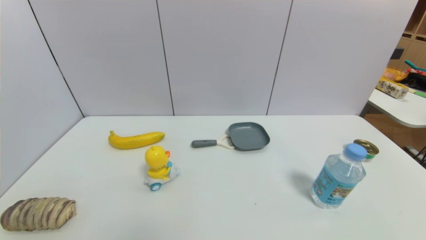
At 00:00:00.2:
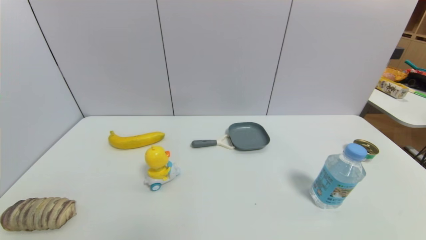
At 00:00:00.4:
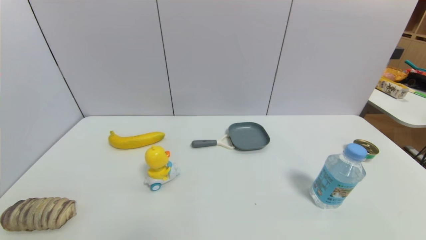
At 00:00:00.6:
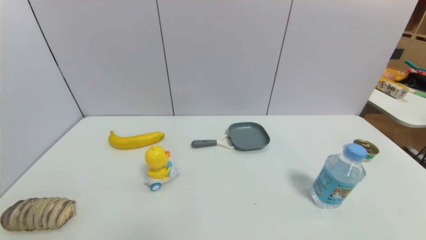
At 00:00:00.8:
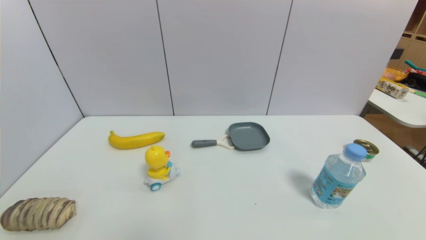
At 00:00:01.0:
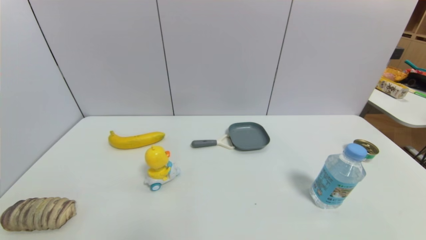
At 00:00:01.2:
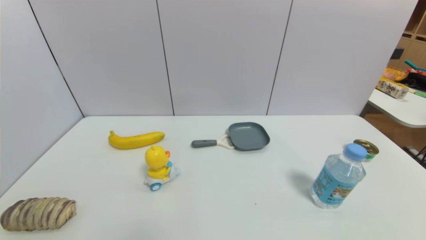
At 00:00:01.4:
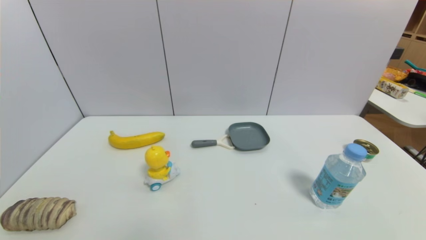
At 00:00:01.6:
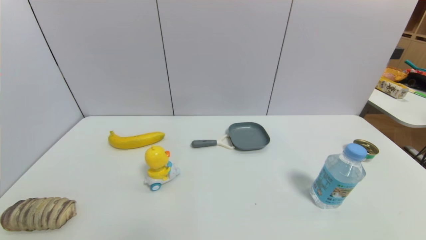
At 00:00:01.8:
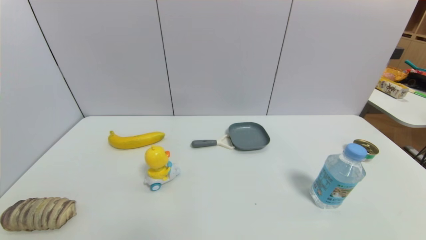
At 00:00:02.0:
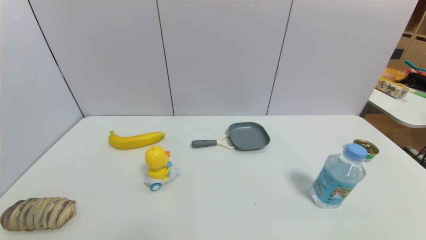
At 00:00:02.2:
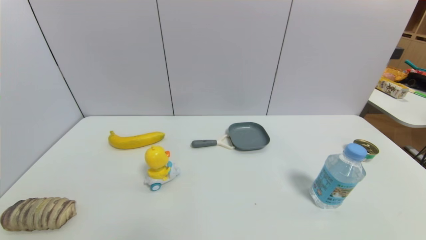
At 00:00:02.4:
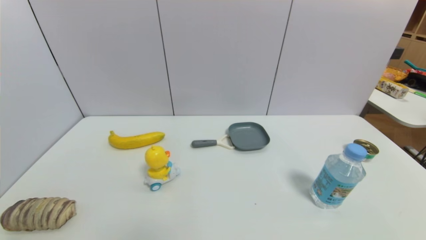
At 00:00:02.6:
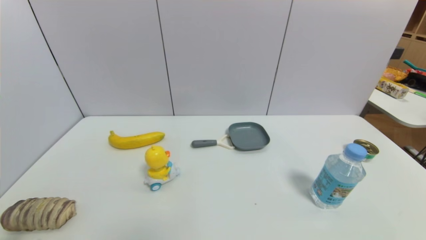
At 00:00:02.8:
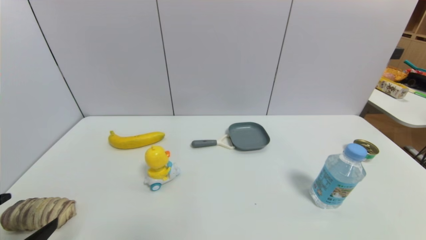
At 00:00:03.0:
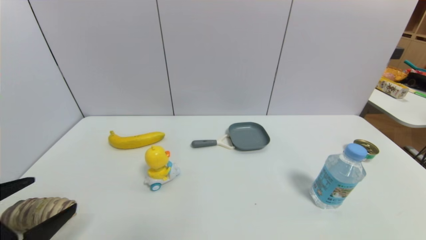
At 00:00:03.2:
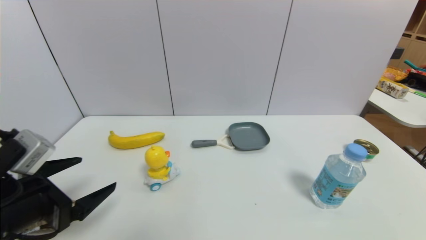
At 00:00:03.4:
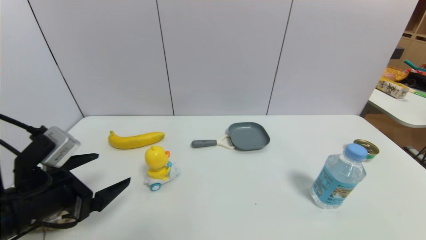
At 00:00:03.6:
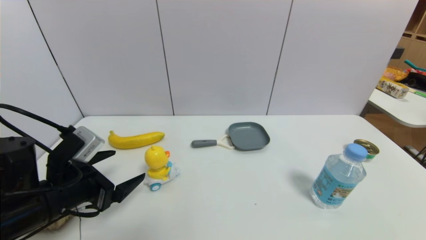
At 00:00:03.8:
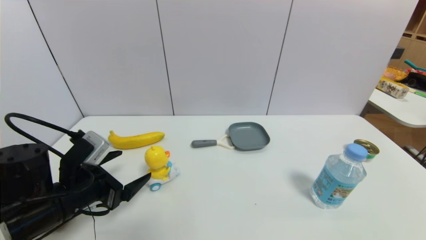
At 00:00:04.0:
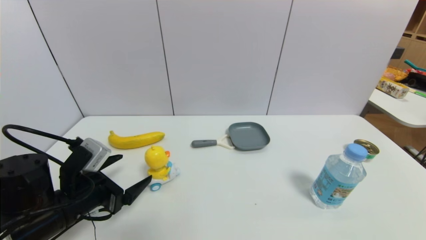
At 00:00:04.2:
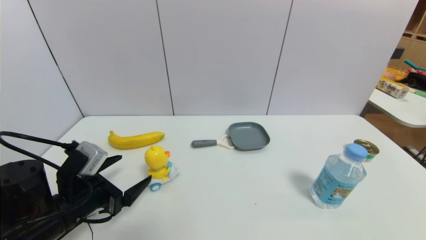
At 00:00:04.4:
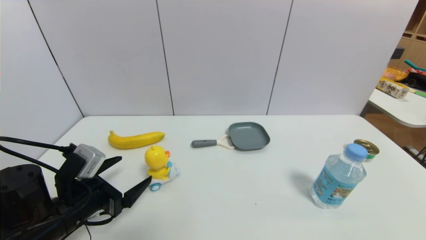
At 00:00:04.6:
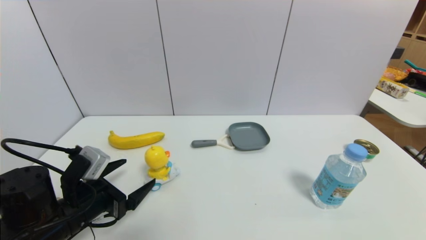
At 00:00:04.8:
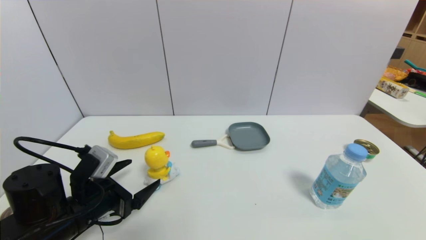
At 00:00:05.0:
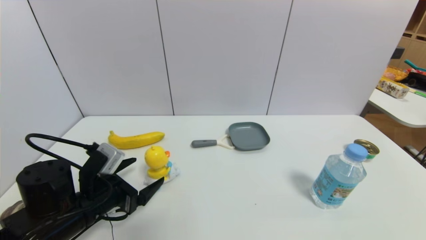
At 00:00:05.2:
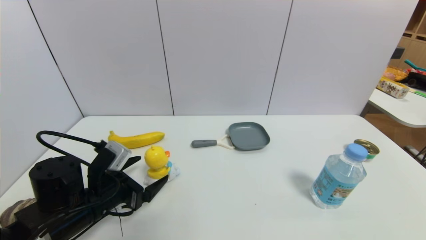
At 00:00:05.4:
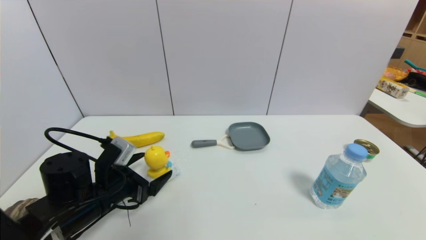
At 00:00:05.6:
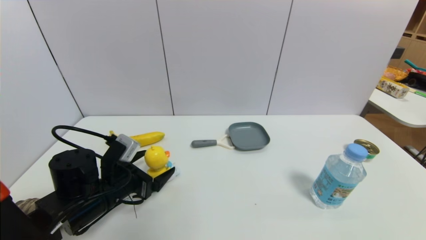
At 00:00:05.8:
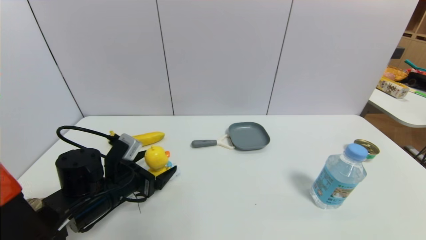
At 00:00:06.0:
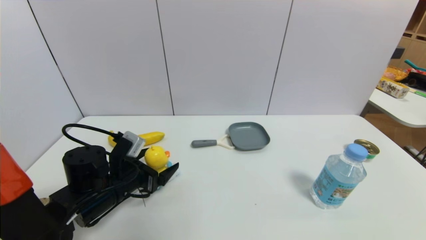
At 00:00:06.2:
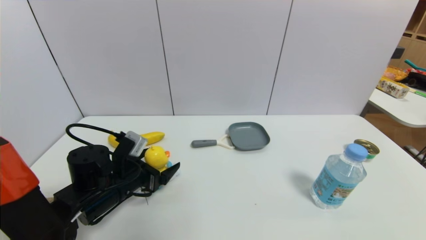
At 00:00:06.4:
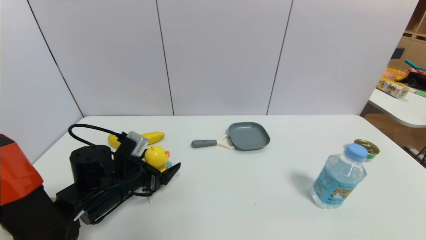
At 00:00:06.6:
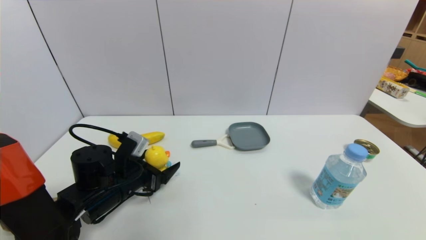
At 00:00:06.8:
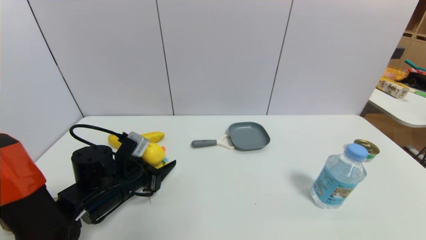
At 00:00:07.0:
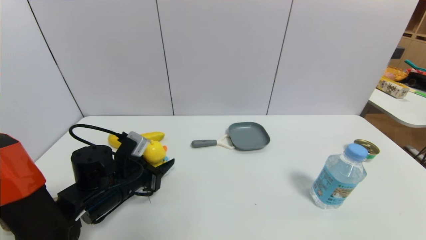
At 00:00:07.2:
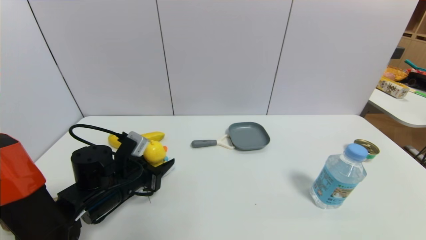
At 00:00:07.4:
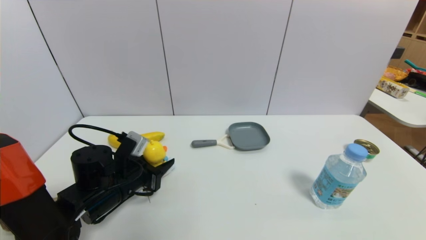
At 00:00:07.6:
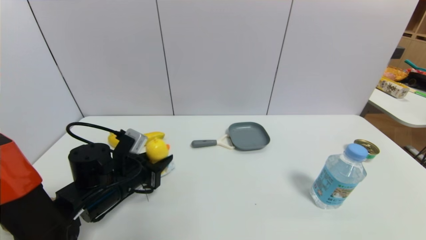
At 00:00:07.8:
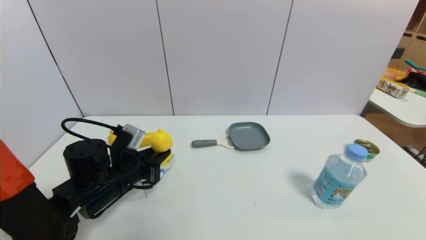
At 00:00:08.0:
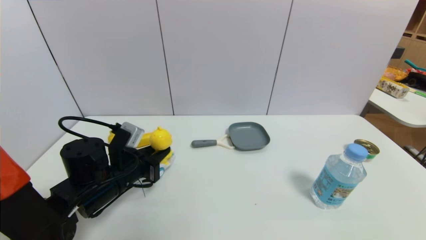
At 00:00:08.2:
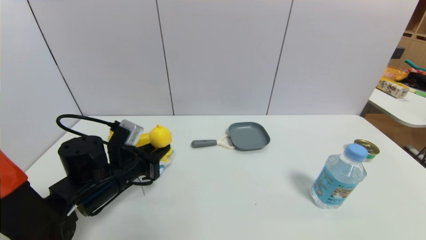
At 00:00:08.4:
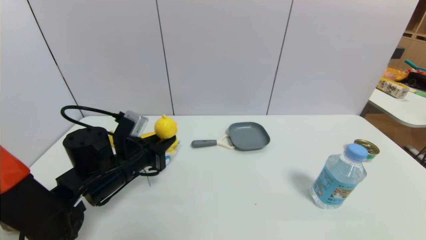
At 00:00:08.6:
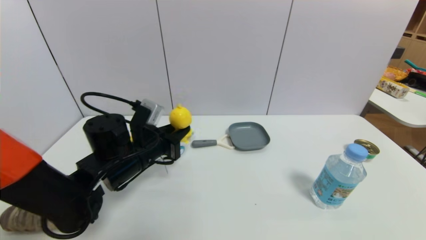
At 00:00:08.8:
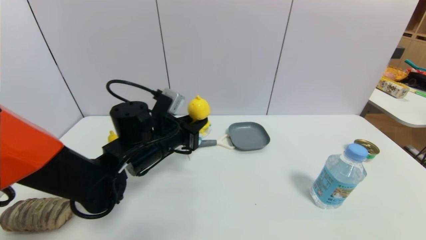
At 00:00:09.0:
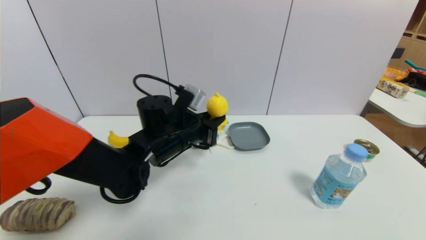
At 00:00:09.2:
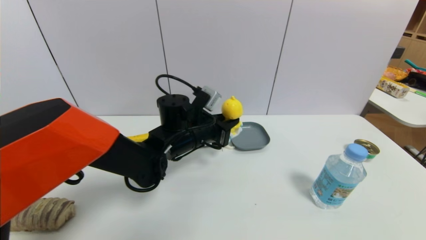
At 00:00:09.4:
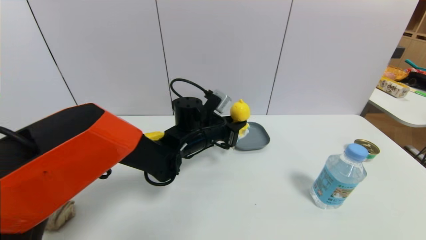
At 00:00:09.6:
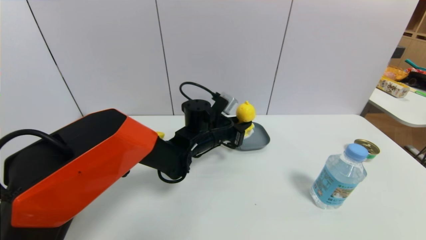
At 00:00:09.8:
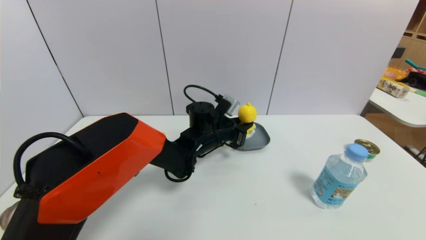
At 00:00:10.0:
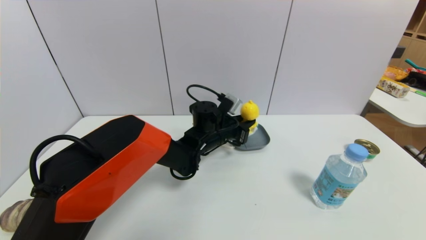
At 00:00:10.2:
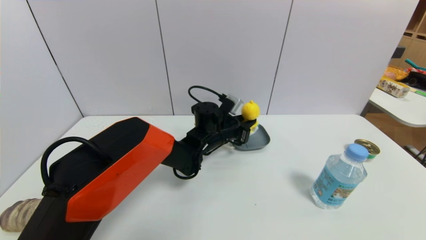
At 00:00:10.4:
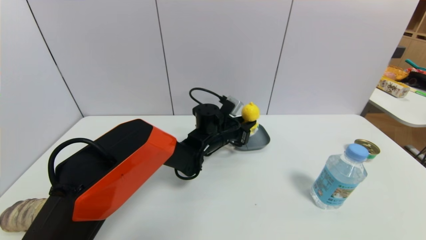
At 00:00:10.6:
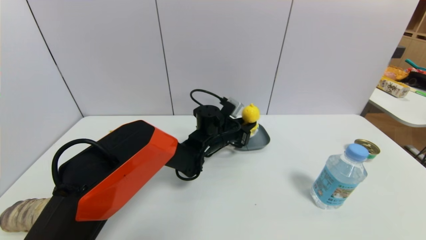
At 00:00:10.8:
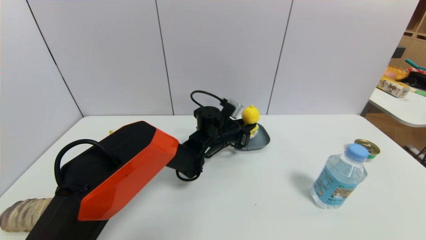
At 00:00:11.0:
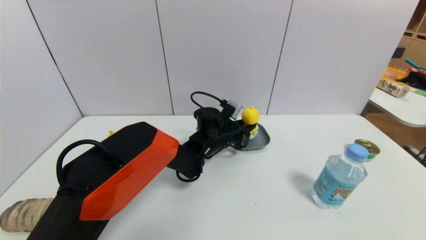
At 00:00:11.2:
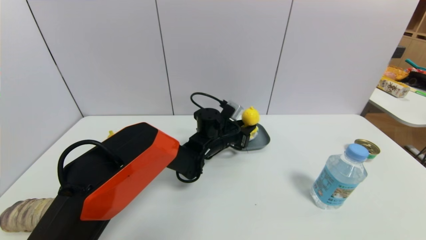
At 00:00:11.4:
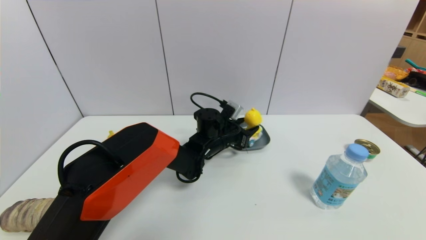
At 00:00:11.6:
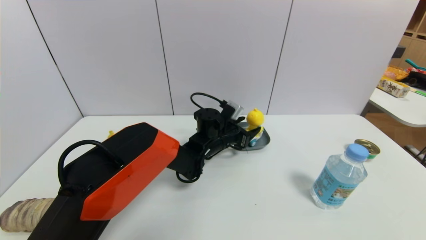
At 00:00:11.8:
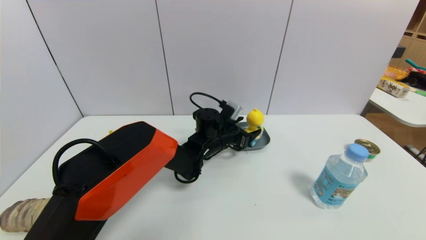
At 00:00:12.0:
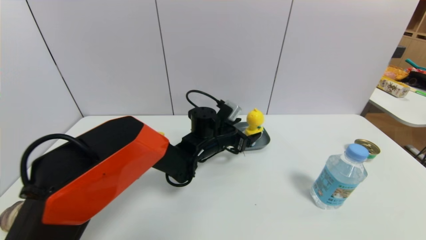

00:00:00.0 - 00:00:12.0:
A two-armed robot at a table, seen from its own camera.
Task of the whole recording: use a gripper to pick the target object and place on the dish.
Step, 00:00:00.0 - 00:00:07.0: Grasp the duck toy with the left gripper.
00:00:01.6 - 00:00:03.0: The left gripper is displaced upward and forward by roughly 15 cm.
00:00:03.0 - 00:00:04.4: The left gripper heads forward and downward, covering roughly 10 cm.
00:00:04.4 - 00:00:06.0: The left gripper travels forward by approximately 5 cm.
00:00:06.0 - 00:00:07.6: The left gripper closes its fingers.
00:00:07.6 - 00:00:09.0: The left gripper is displaced to the right, upward and forward by roughly 15 cm.
00:00:09.0 - 00:00:10.4: The left gripper moves to the right, forward and downward, roughly 15 cm.
00:00:10.4 - 00:00:12.0: The left gripper opens up.

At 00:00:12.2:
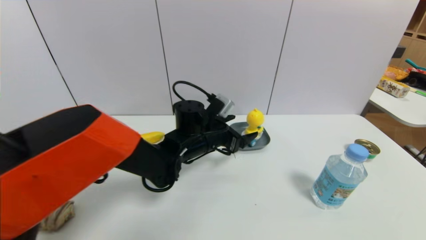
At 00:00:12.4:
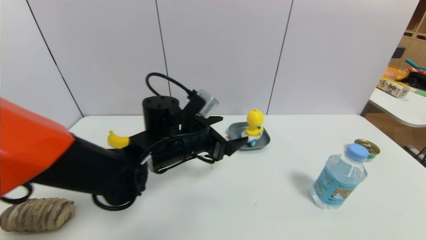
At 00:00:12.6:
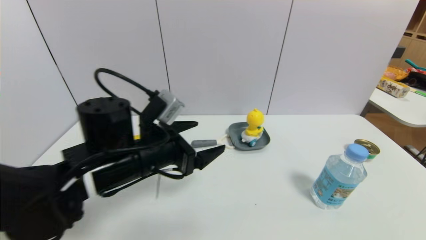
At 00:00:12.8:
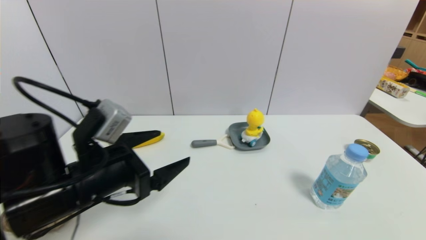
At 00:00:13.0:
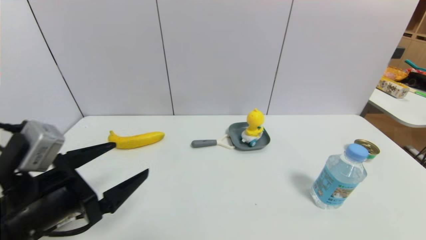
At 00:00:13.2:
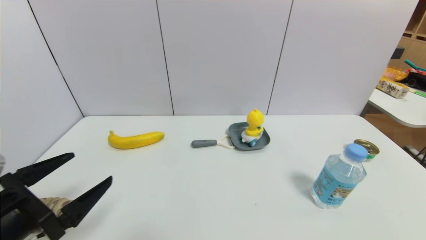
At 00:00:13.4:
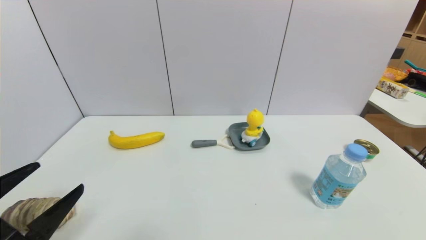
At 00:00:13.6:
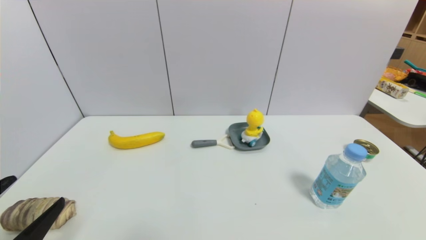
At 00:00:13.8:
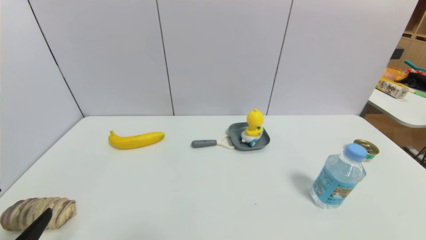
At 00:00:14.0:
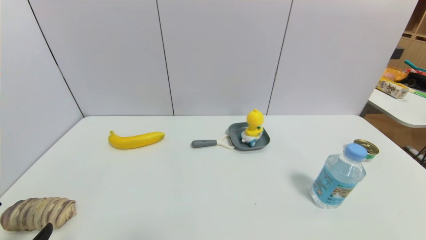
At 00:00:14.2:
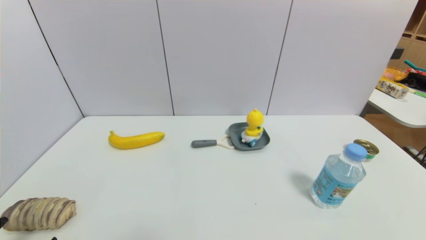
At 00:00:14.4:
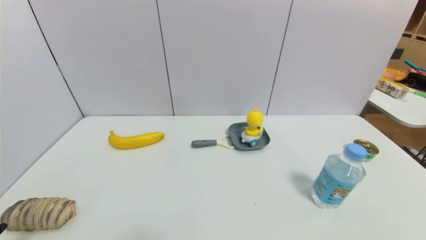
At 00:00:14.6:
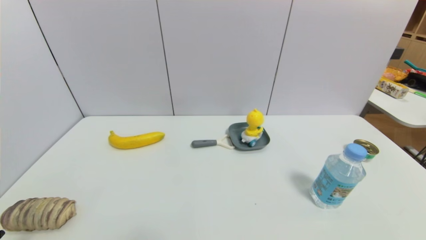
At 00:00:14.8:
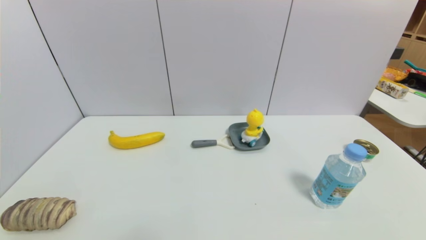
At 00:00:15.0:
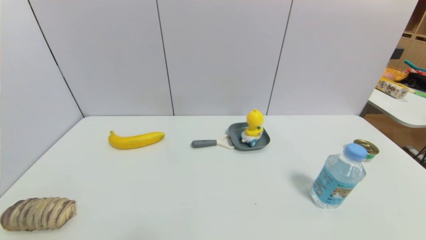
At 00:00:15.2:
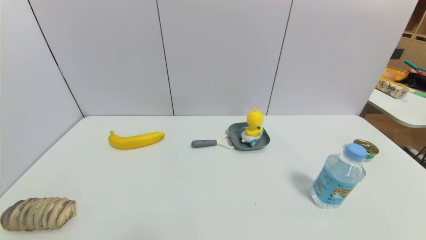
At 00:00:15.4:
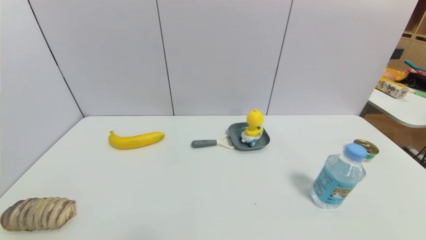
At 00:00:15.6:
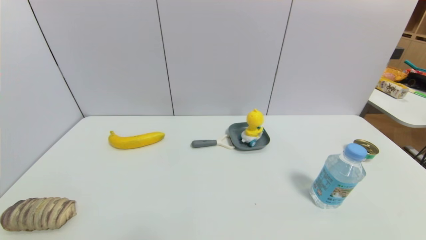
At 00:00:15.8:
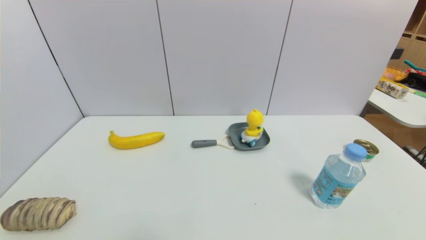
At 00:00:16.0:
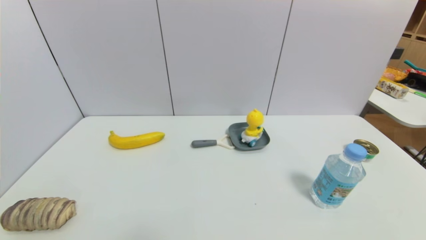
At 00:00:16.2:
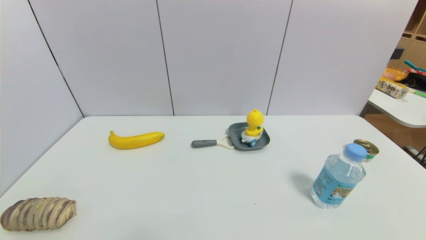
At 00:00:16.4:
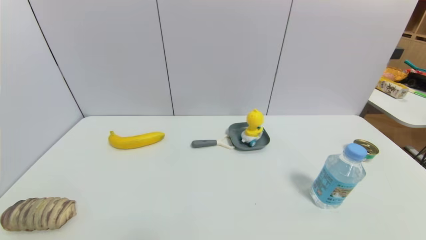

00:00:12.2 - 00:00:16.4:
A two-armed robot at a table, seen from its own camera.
Task of the whole recording: use a gripper to pick the target object and place on the dish.
00:00:12.2 - 00:00:13.6: The left gripper travels backward and to the left by approximately 40 cm.
00:00:13.6 - 00:00:15.0: The left gripper shifts about 10 cm downward and backward.
00:00:15.0 - 00:00:16.4: Both grippers stay about where they are.
